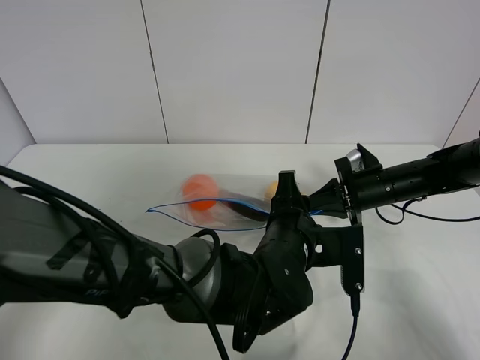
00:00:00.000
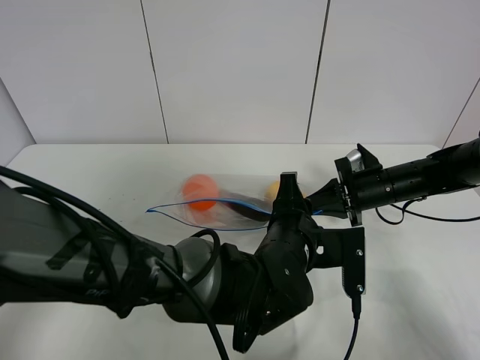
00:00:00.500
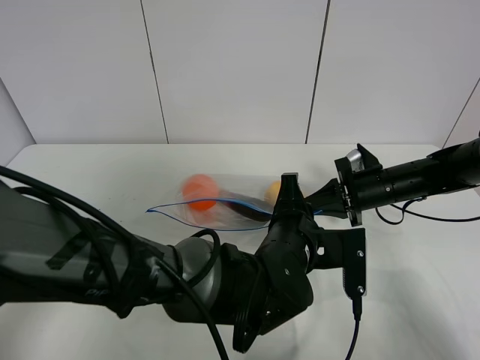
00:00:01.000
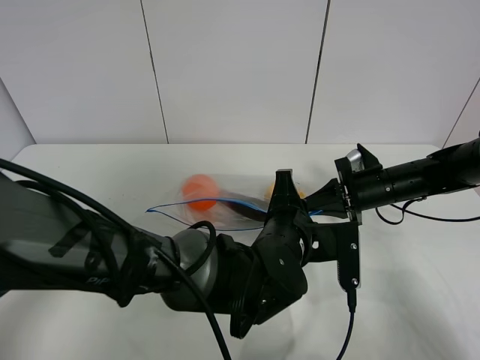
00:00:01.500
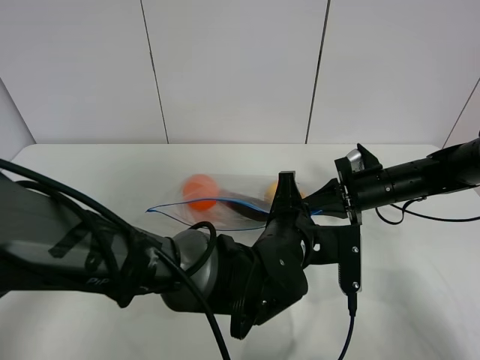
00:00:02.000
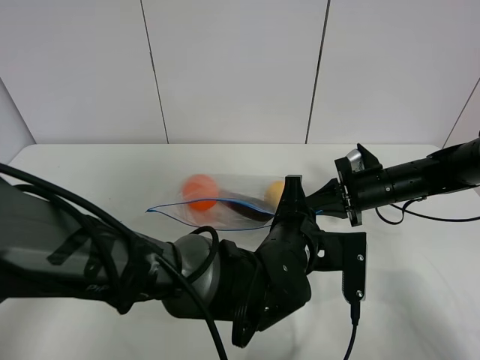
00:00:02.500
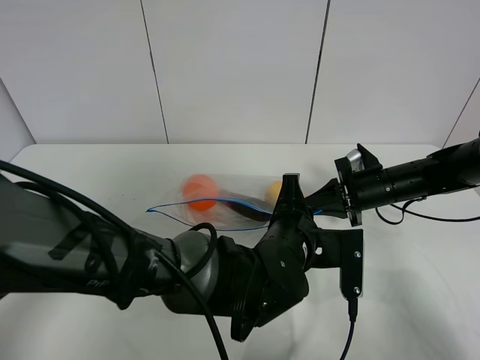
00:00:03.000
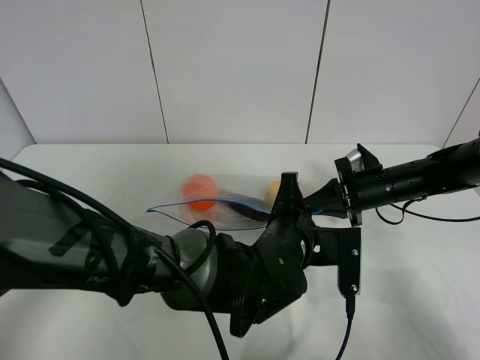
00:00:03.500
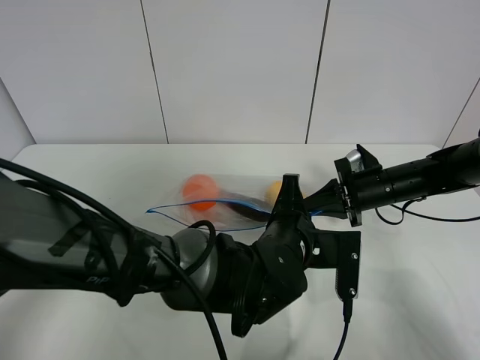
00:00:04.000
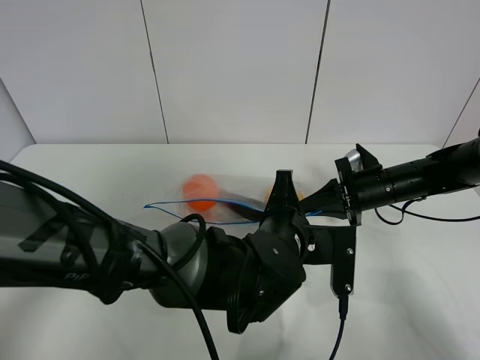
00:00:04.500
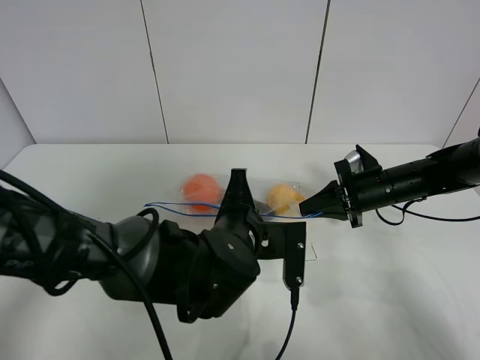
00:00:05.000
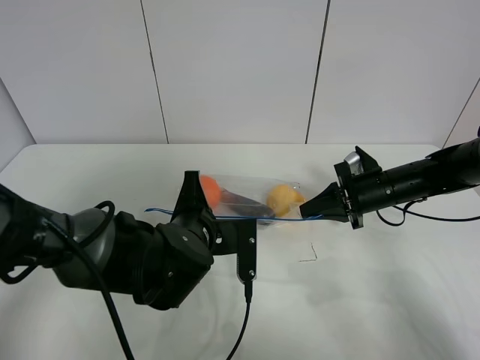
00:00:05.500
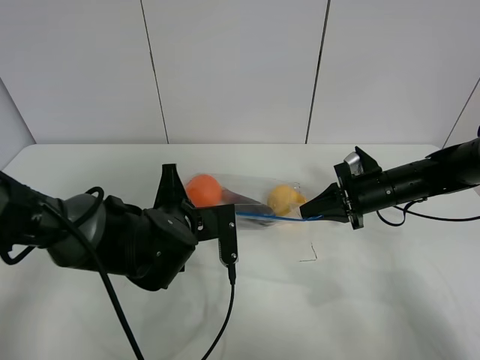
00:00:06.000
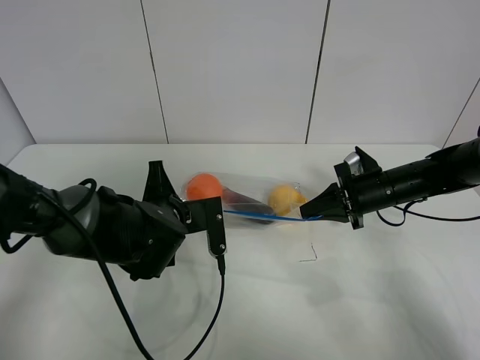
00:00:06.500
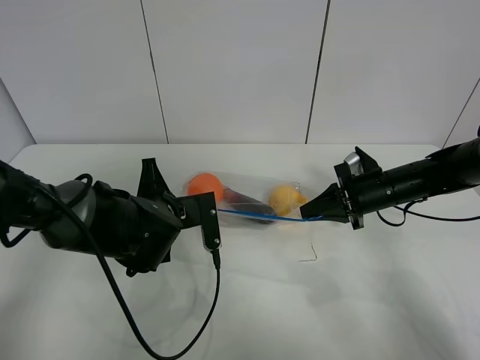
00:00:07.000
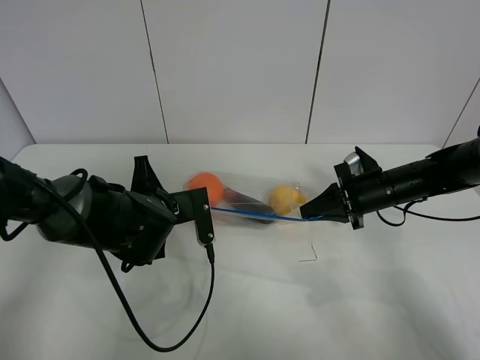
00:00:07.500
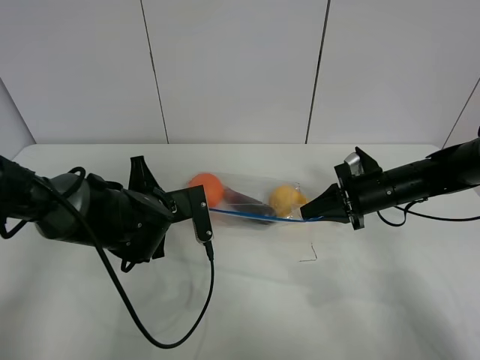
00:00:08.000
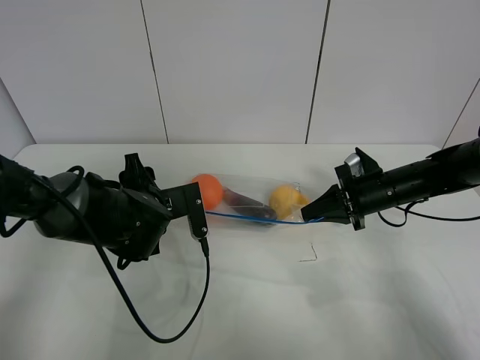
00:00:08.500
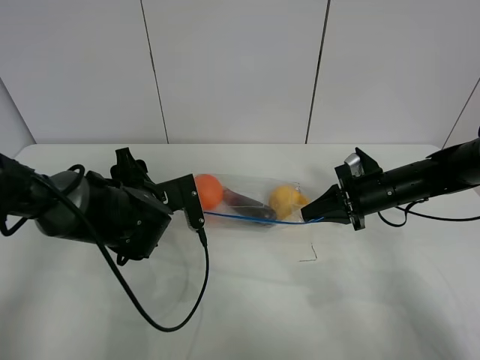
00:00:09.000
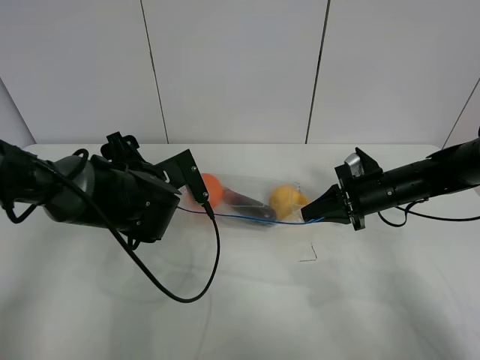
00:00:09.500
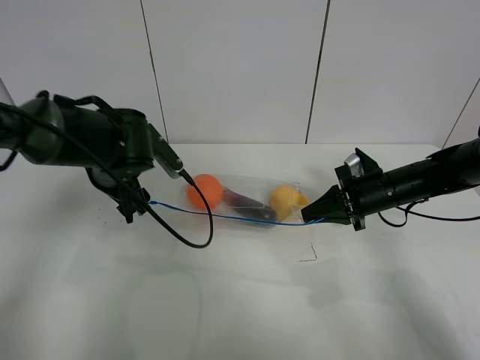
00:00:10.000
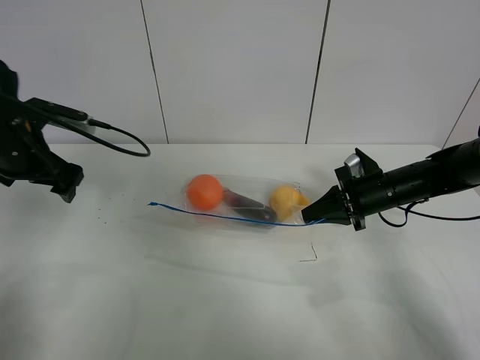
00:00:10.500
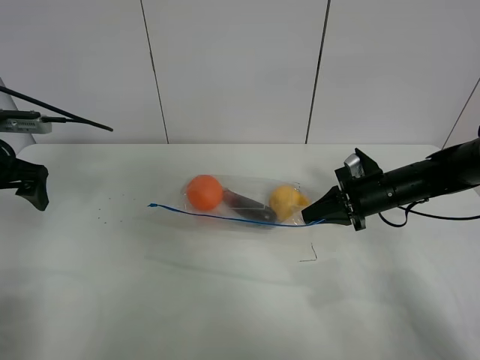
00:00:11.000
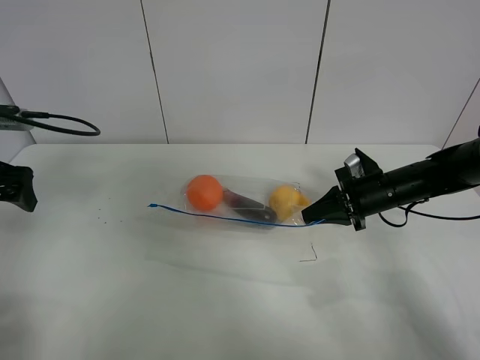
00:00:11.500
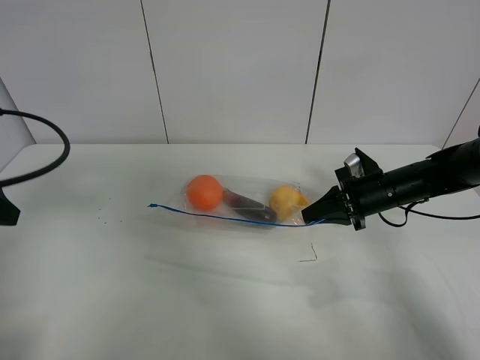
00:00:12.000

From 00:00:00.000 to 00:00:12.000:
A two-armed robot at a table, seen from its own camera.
Step, from 00:00:00.000 to 00:00:08.000: Pull the fruit bag with left gripper.
From 00:00:00.000 to 00:00:02.000: Neither gripper changes place.
From 00:00:02.000 to 00:00:04.000: Both grippers stay about where they are.
From 00:00:04.000 to 00:00:06.000: The left gripper is displaced to the left by some 15 cm.
From 00:00:06.000 to 00:00:08.000: The grippers make only small movements.
From 00:00:08.000 to 00:00:10.000: The left gripper goes some 10 cm upward and forward, and opens its fingers.
From 00:00:10.000 to 00:00:12.000: The left gripper moves to the left, backward and upward, about 25 cm.

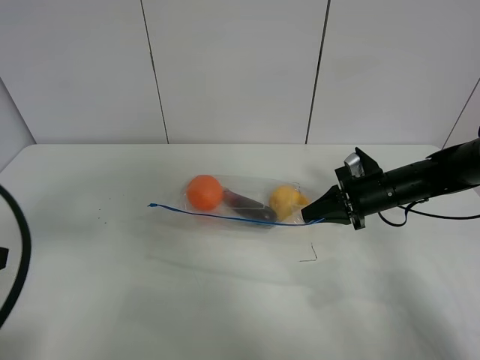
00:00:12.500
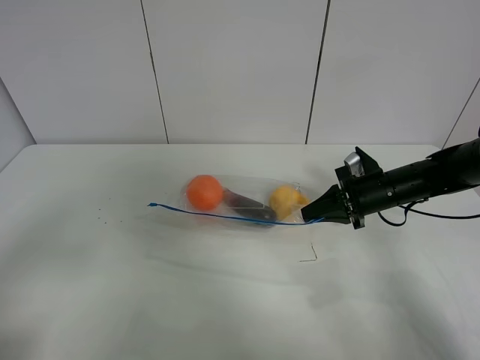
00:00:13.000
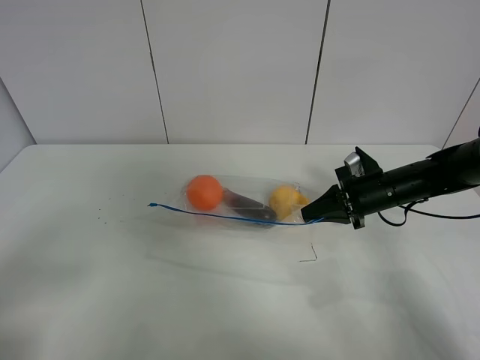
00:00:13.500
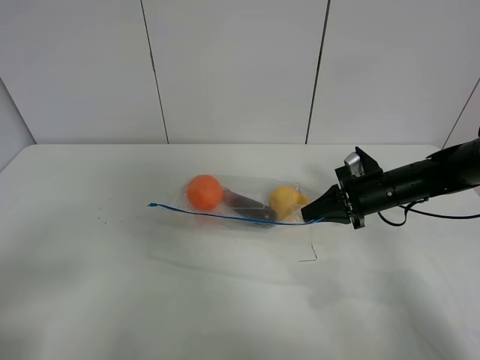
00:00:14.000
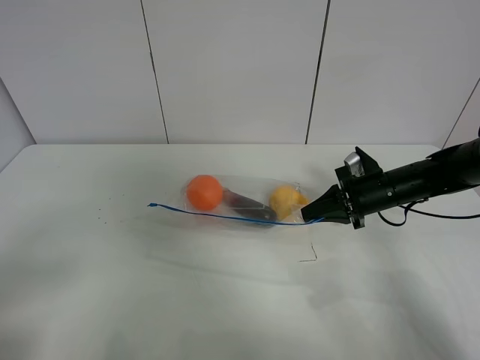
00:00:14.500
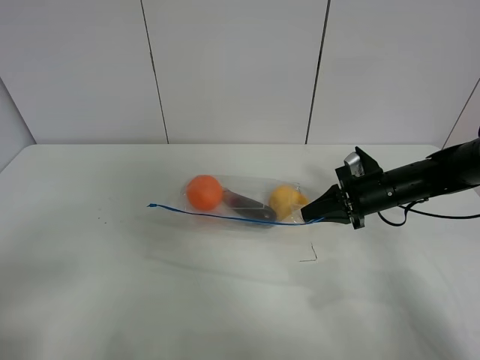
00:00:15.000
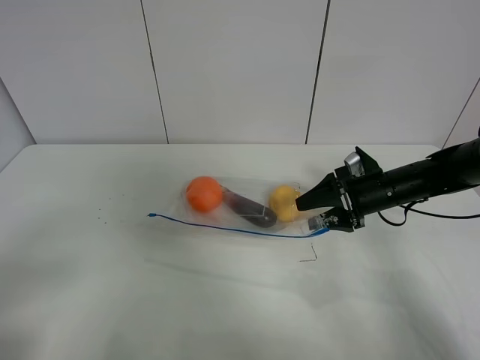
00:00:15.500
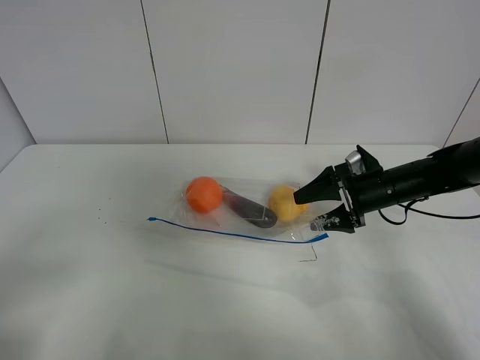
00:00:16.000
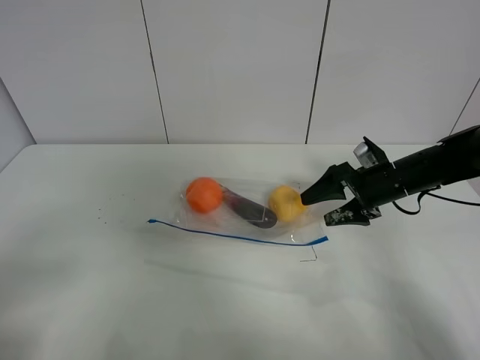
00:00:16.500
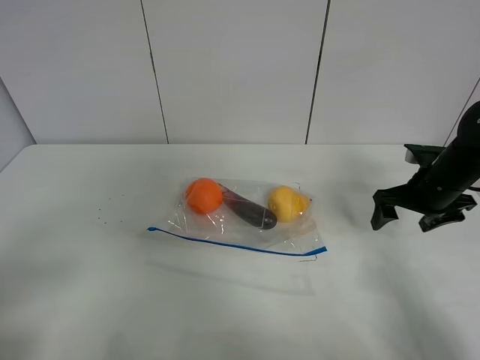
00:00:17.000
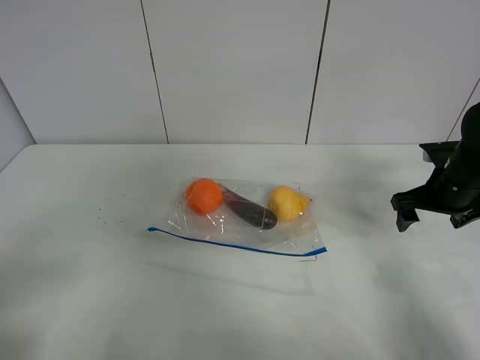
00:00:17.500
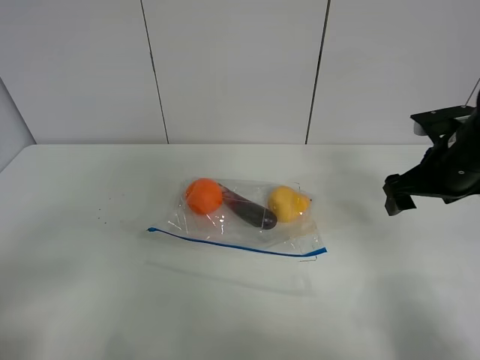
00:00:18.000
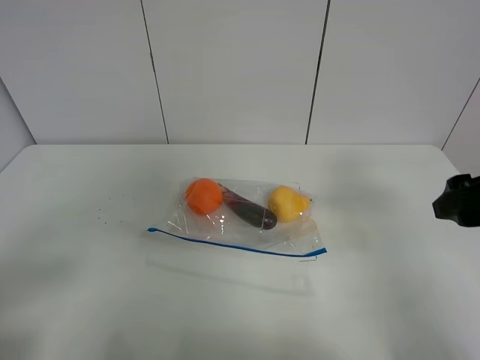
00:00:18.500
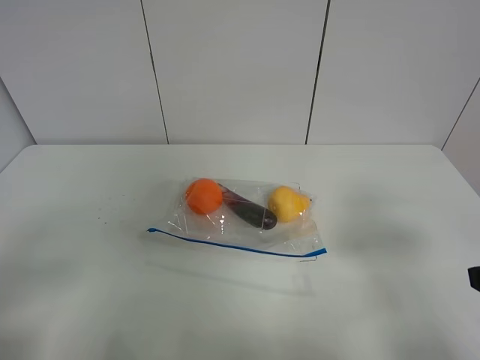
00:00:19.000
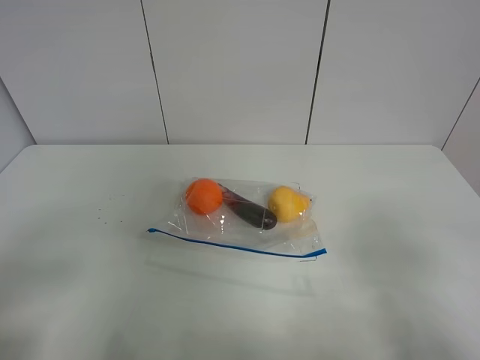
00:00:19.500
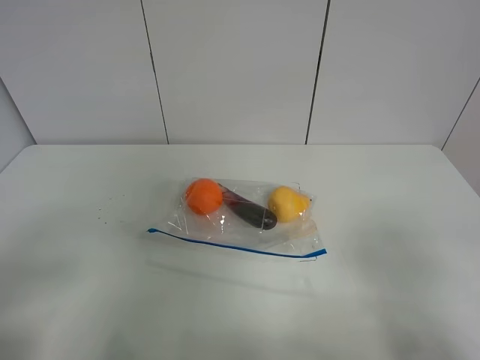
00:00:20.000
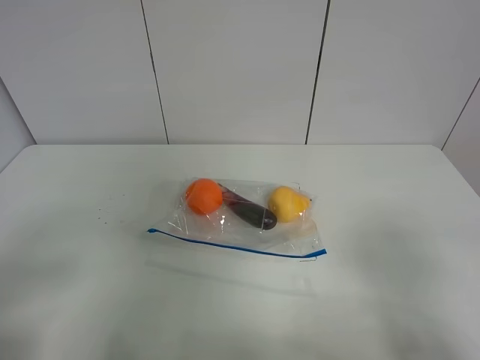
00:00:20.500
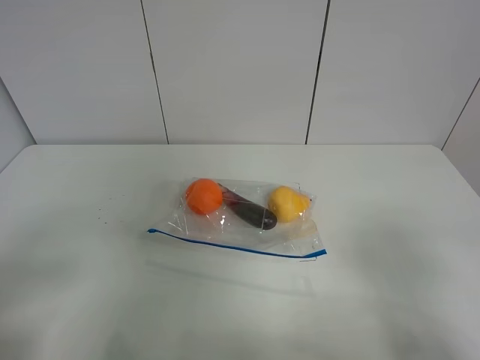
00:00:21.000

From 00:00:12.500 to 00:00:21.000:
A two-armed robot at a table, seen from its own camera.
Step, from 00:00:12.500 to 00:00:16.500: Place the fruit bag with right gripper.
From 00:00:12.500 to 00:00:14.500: The left gripper shifts about 10 cm backward.
From 00:00:14.500 to 00:00:16.500: The right gripper opens up.
From 00:00:16.500 to 00:00:19.000: The right gripper shifts about 30 cm backward and upward.
